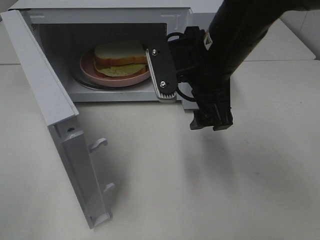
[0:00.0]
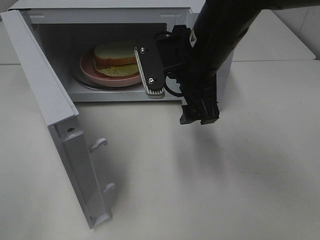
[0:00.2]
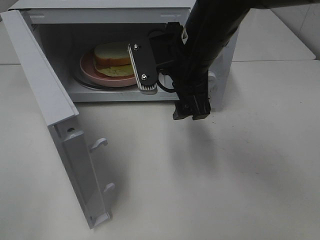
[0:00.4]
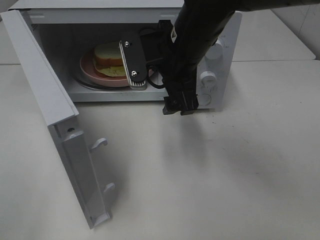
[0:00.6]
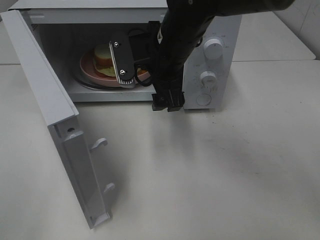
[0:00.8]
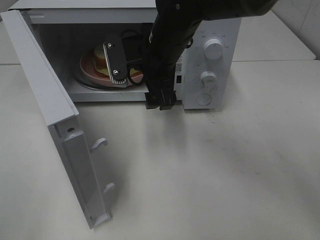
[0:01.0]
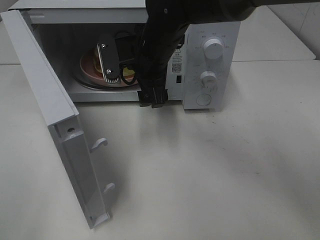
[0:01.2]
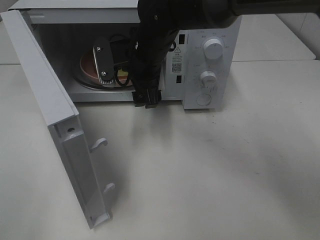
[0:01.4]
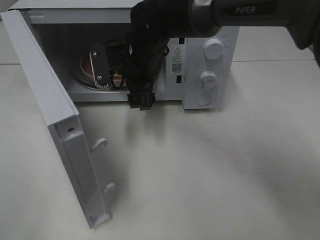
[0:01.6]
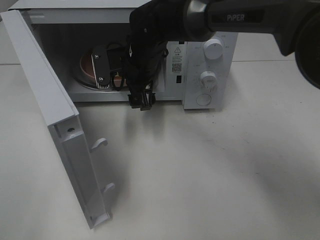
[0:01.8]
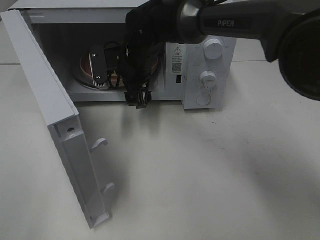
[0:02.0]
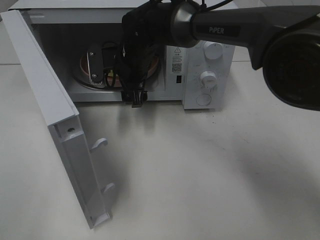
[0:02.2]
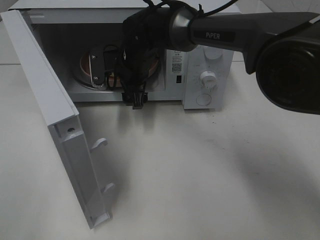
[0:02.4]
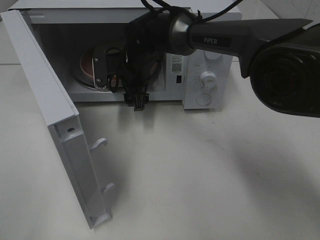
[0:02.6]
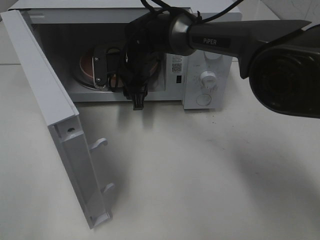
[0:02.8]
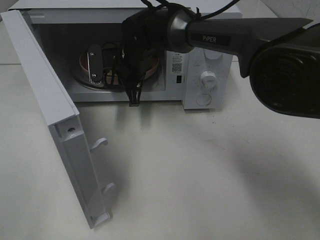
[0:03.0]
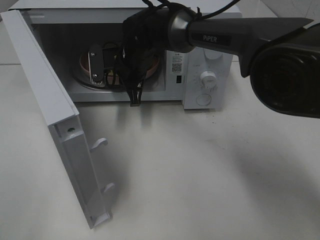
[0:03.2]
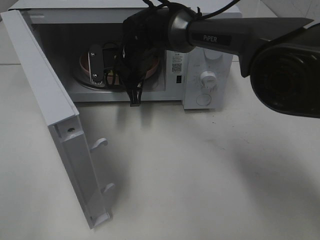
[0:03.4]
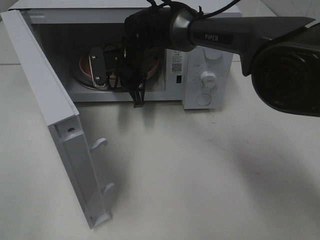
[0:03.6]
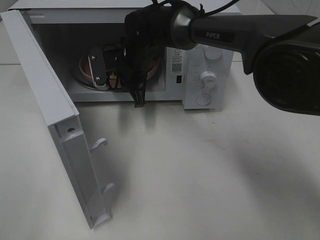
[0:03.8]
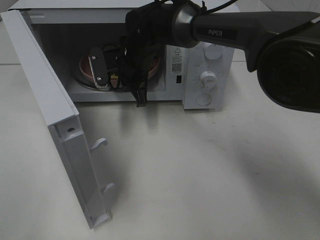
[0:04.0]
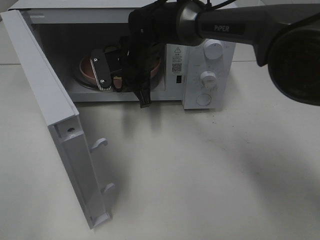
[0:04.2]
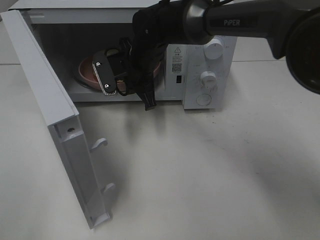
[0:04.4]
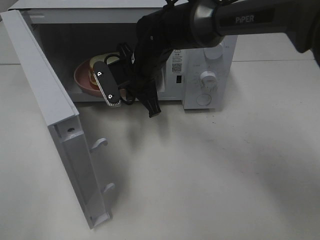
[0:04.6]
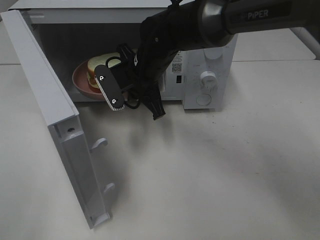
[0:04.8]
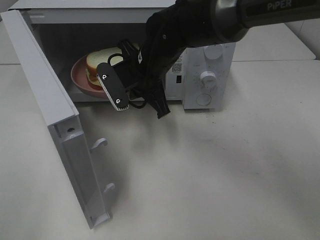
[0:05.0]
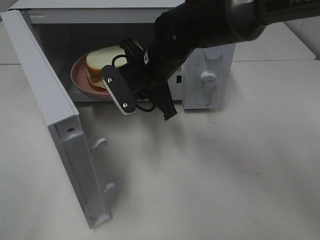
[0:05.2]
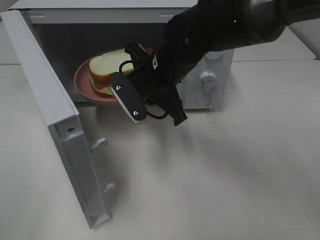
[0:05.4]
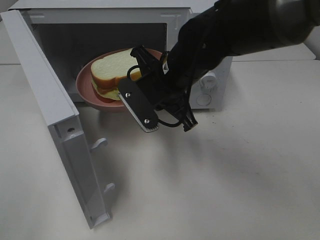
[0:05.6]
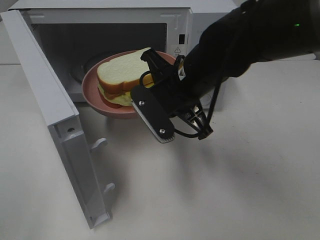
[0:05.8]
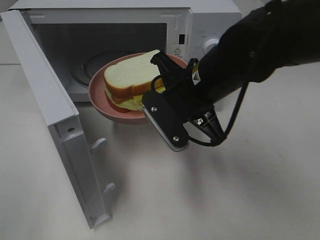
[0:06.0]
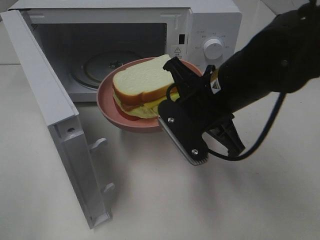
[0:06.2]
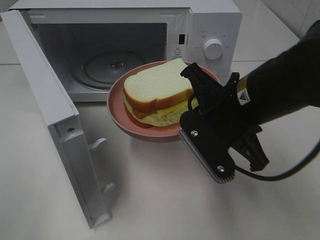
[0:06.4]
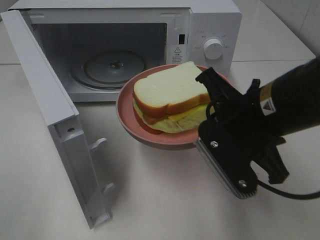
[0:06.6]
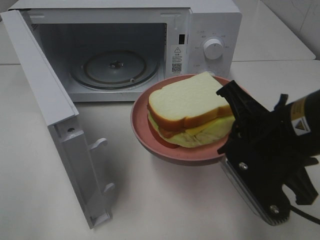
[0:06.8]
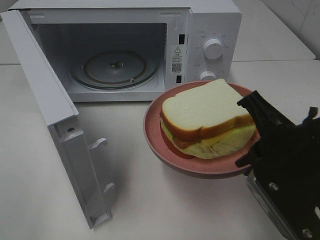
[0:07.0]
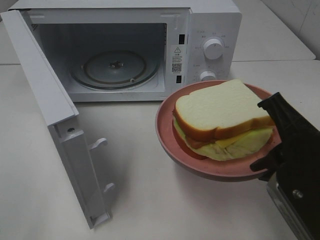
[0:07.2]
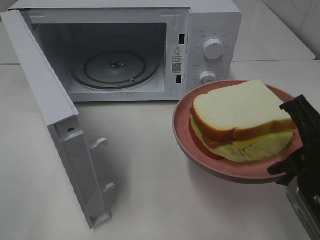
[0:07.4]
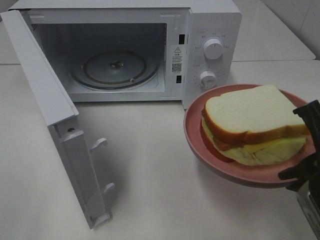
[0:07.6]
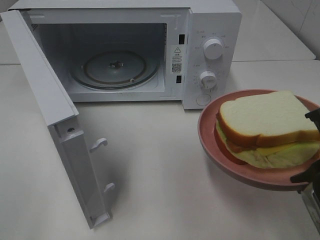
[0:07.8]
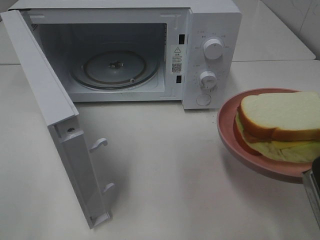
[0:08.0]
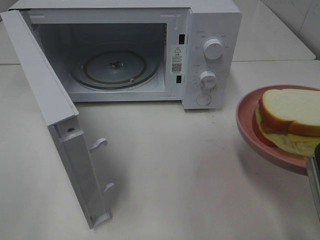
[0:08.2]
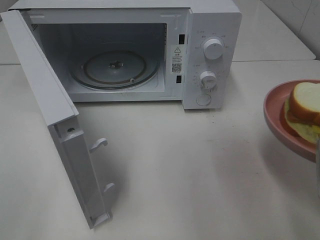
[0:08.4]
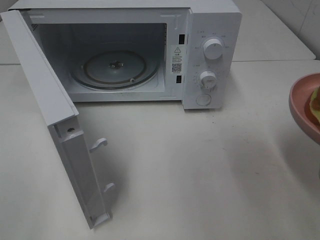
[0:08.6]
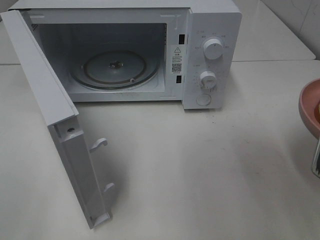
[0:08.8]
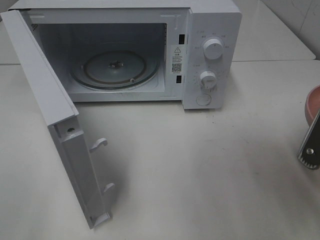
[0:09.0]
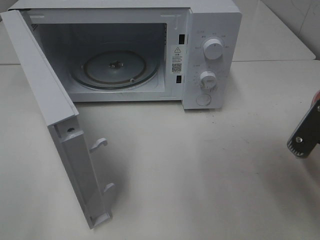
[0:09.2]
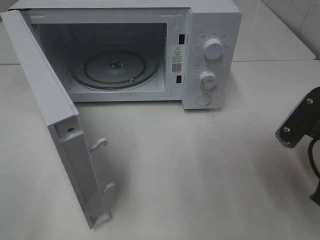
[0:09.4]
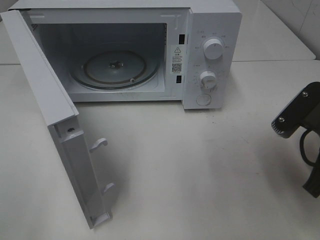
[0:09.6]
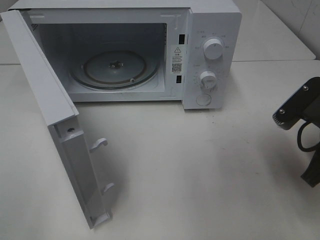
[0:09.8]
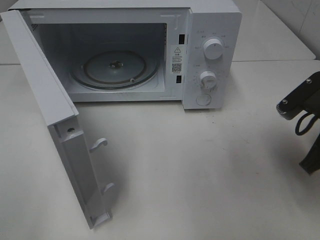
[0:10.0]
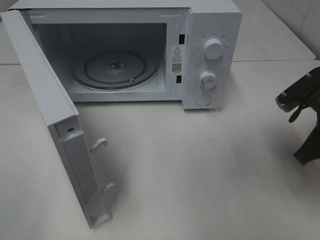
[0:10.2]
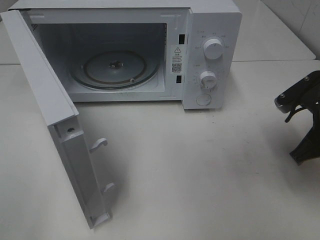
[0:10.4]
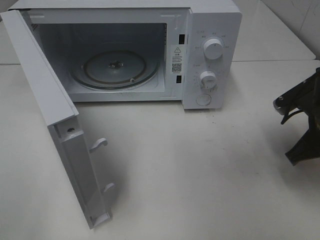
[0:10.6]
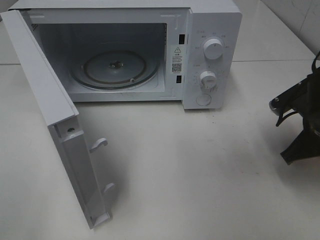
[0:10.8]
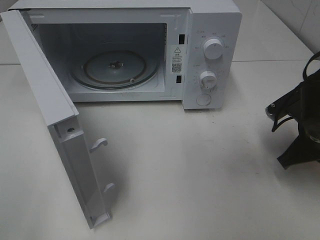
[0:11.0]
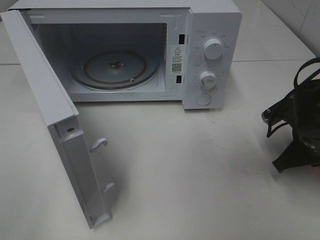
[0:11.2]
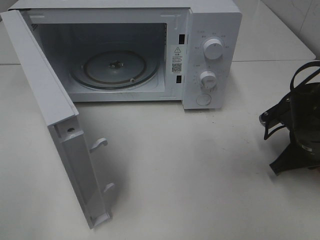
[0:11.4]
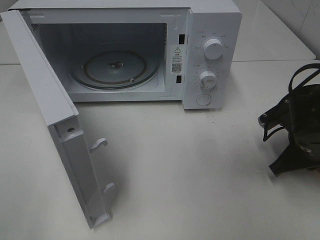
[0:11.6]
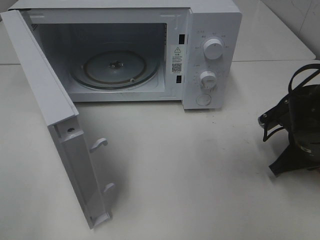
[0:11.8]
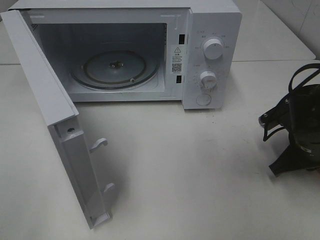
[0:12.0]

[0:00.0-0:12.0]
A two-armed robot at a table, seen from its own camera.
Task of the whole recording: Heat Sandwich.
Step, 0:00.0 to 0:03.8: Right hand: grab the plate with the sandwich.
0:00.0 to 0:01.6: The right gripper shifts roughly 15 cm forward, to the left and downward.
0:01.6 to 0:03.0: The right gripper shifts by about 5 cm, and closes up.
0:03.0 to 0:04.4: The grippers move only a little.
0:04.4 to 0:06.0: The right gripper goes roughly 15 cm backward and to the right.
0:06.0 to 0:07.6: The right gripper travels backward and to the right by approximately 20 cm.
0:09.0 to 0:10.4: The right gripper shifts roughly 10 cm forward.
0:10.4 to 0:12.0: The right gripper heads downward, covering roughly 5 cm.

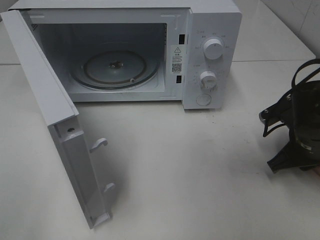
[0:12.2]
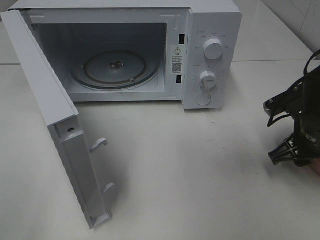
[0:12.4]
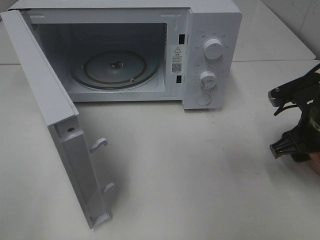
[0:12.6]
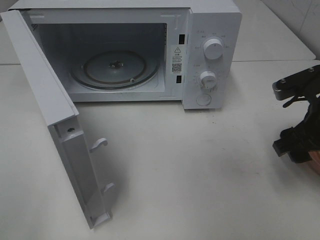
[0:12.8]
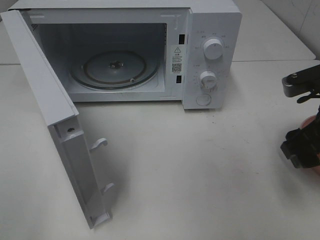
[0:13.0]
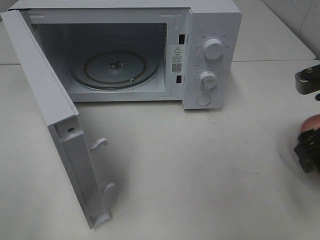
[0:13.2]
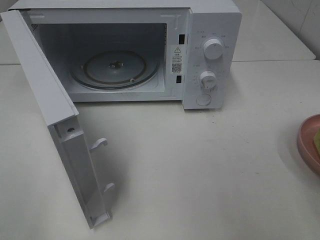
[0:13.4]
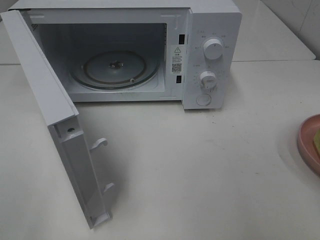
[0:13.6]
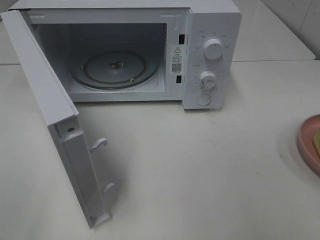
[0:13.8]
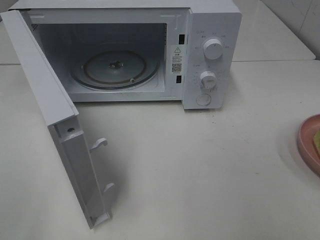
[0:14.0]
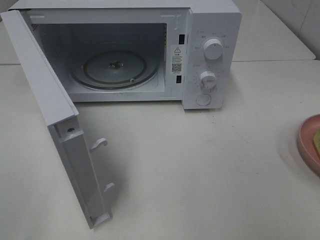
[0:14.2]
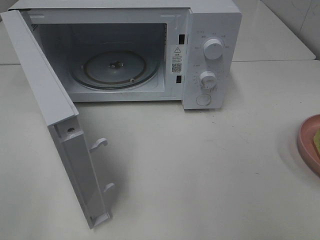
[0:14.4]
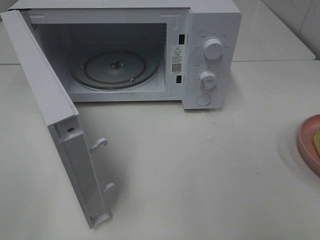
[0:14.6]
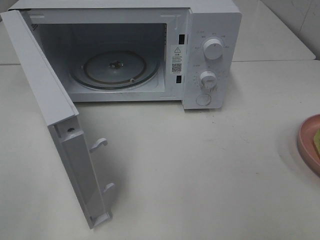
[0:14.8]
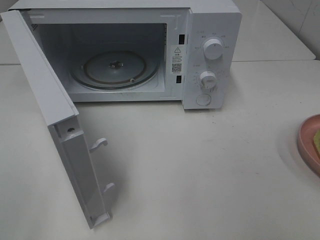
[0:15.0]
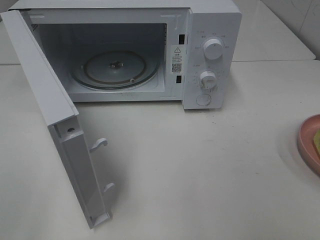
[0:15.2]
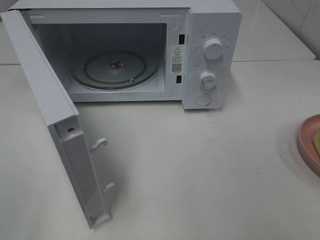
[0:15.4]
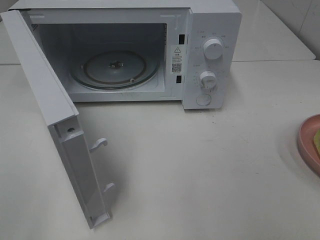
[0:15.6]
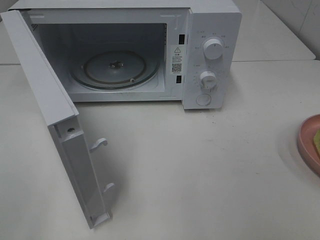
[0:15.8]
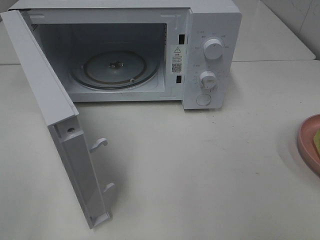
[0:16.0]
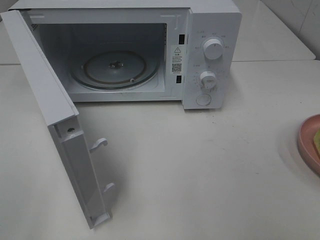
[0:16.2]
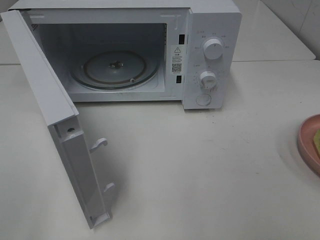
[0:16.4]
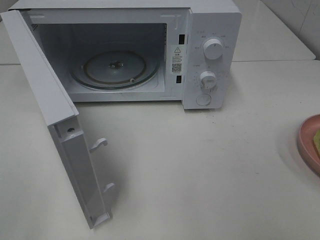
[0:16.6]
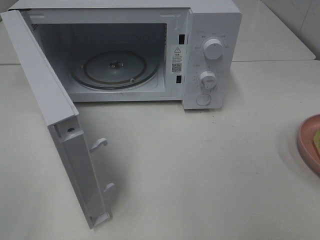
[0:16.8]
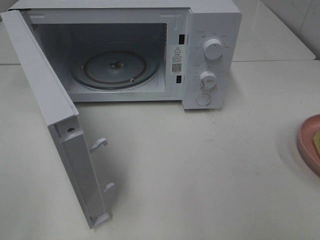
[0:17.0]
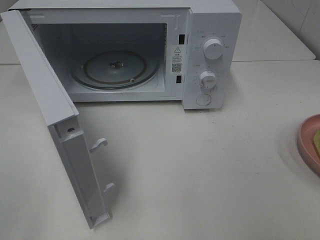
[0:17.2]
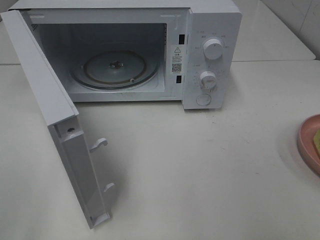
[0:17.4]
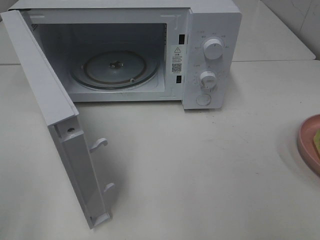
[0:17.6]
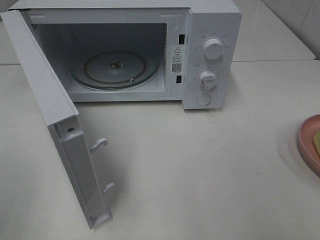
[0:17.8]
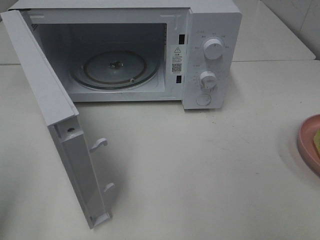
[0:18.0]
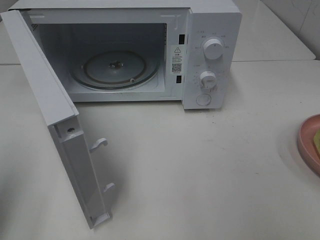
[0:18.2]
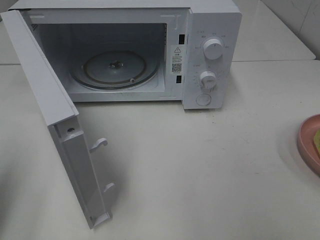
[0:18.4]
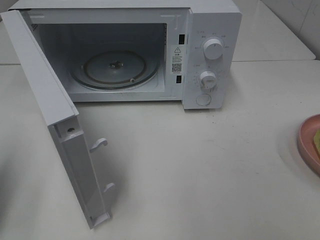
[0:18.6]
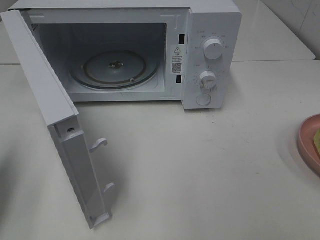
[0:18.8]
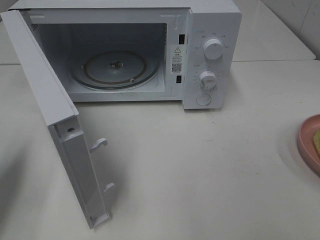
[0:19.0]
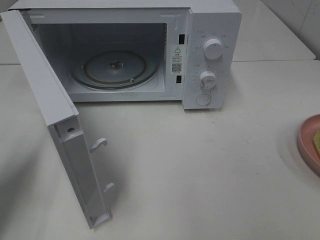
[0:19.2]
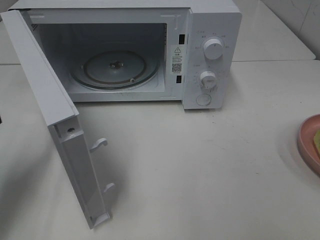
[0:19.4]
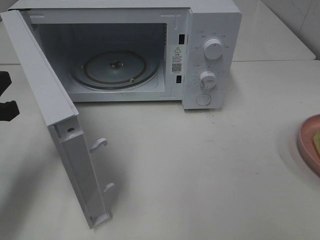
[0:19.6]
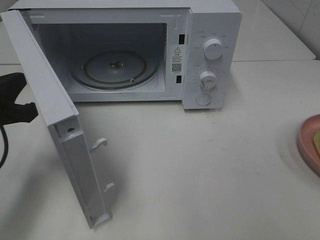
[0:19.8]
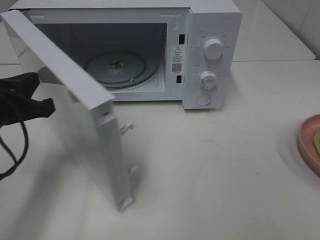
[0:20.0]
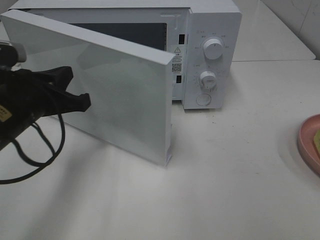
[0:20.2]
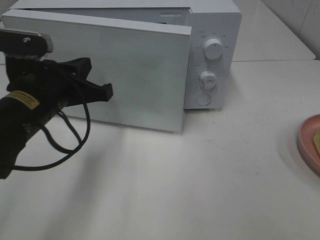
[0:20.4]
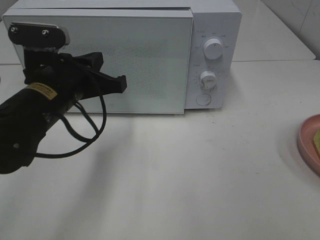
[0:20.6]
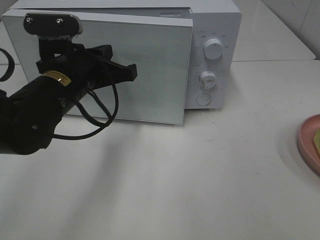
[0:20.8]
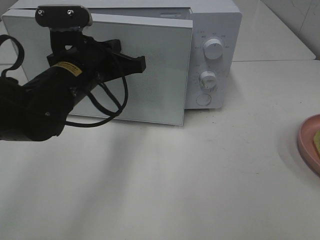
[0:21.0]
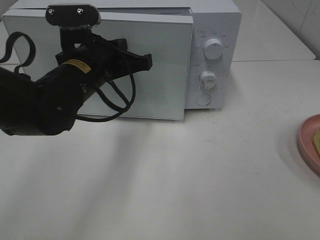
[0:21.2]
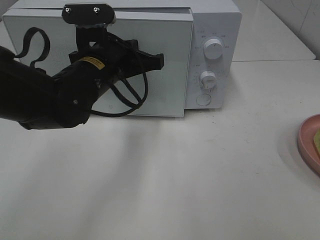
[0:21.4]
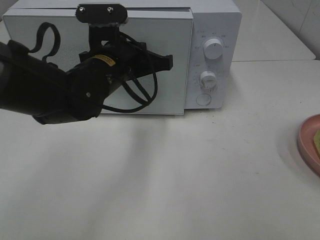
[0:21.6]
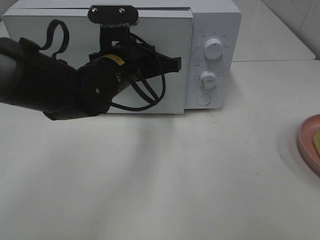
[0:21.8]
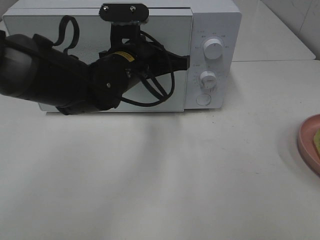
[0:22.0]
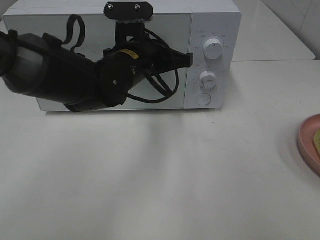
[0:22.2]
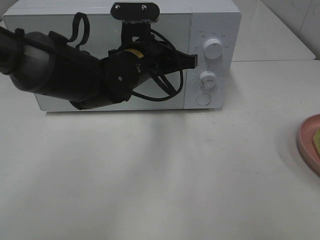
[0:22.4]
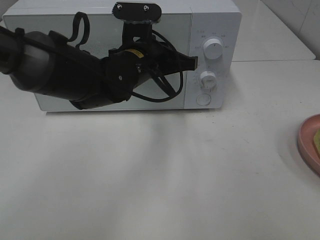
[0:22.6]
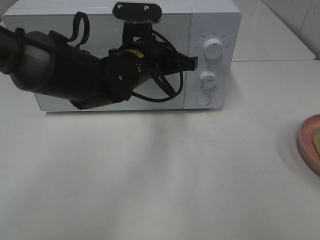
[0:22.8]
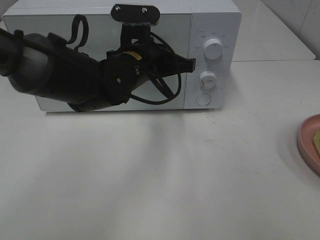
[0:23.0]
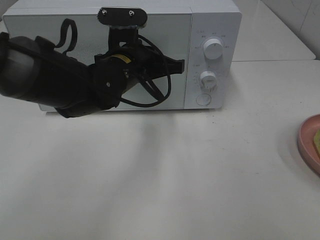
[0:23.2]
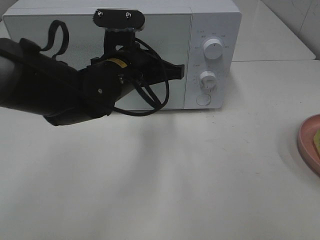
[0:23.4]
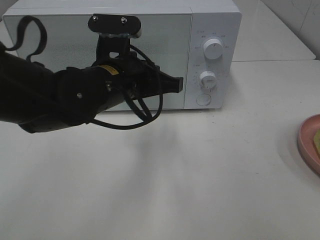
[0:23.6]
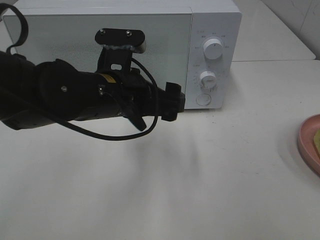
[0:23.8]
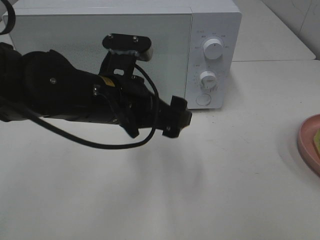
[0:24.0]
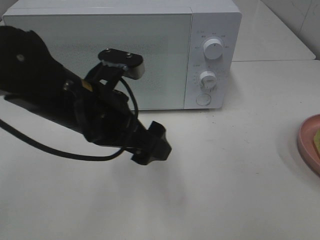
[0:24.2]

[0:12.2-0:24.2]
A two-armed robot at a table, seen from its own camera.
Task of the whole recording: Heat Sandwich.
Step, 0:13.0 to 0:23.2: Left hand: close the microwave door.
0:12.2 to 0:13.8: The right gripper moves upward and backward, roughly 25 cm, and opens up.
0:15.2 to 0:16.6: Both grippers stay about where they are.
0:16.6 to 0:18.2: The left gripper heads forward, covering some 10 cm, and closes up.
0:18.2 to 0:19.8: The left gripper travels forward, downward and to the right by some 15 cm.
0:19.8 to 0:21.2: The left gripper heads to the right and forward, covering approximately 15 cm.
0:21.2 to 0:22.6: The left gripper moves to the right, roughly 5 cm.
0:22.6 to 0:24.2: The left gripper is displaced backward and to the left by approximately 15 cm, and opens its fingers.
